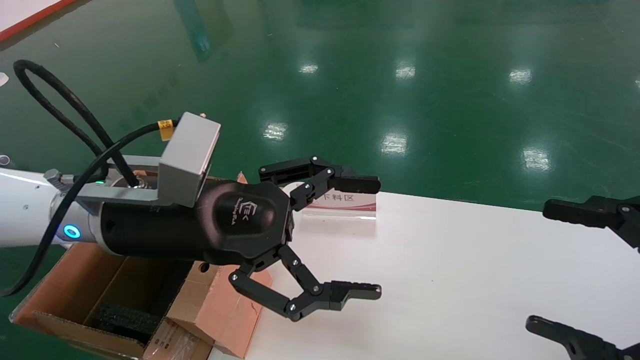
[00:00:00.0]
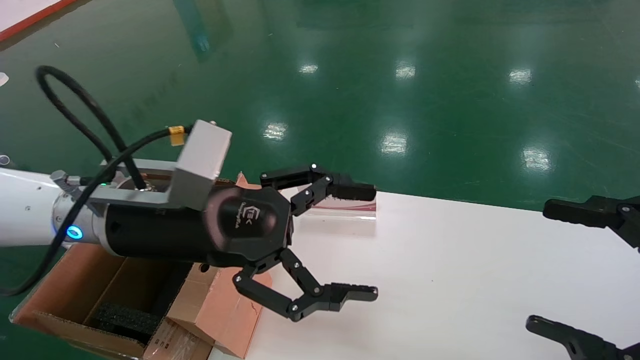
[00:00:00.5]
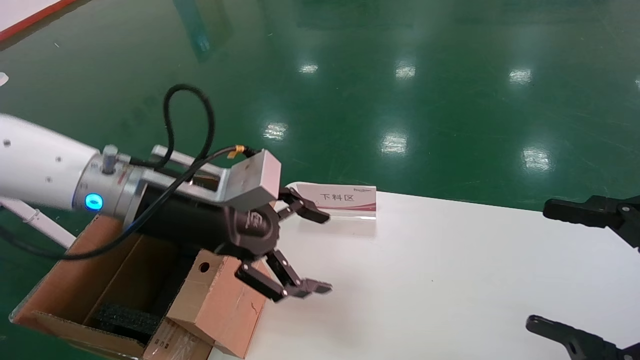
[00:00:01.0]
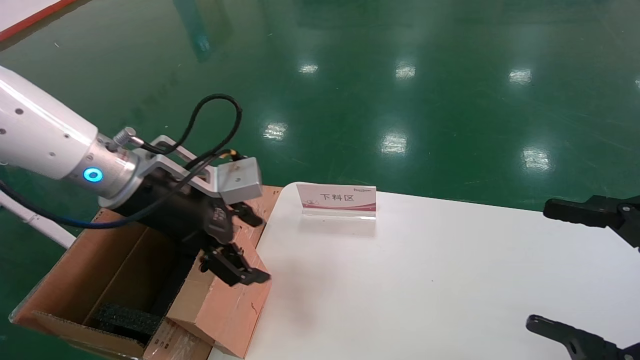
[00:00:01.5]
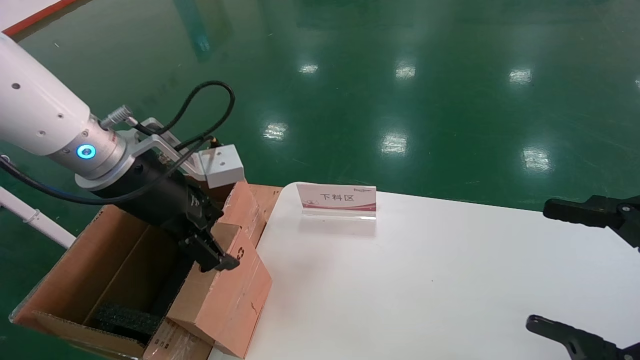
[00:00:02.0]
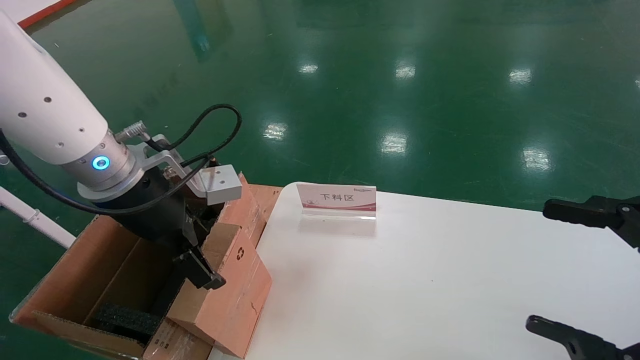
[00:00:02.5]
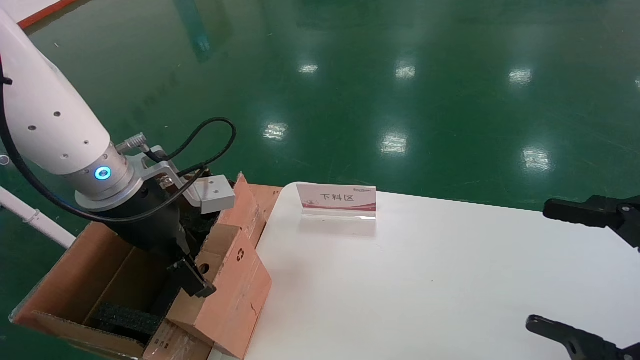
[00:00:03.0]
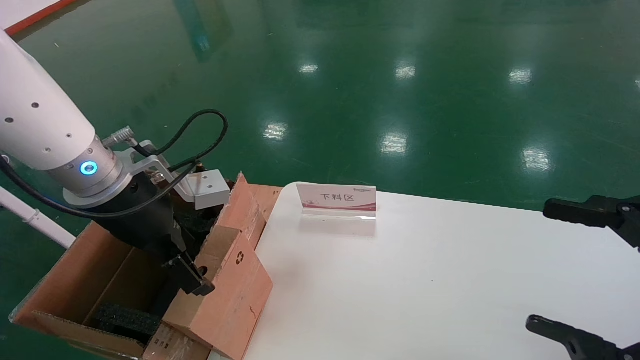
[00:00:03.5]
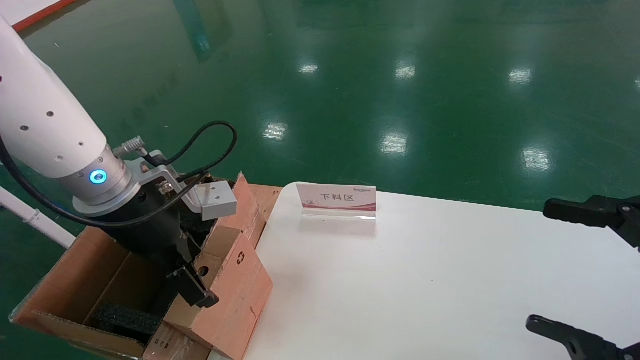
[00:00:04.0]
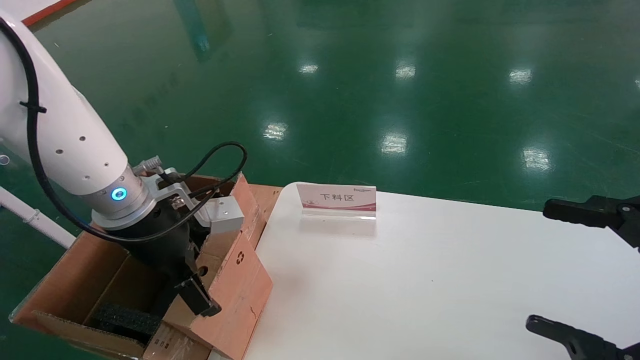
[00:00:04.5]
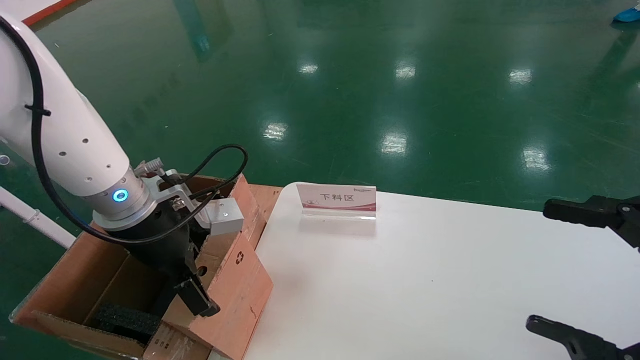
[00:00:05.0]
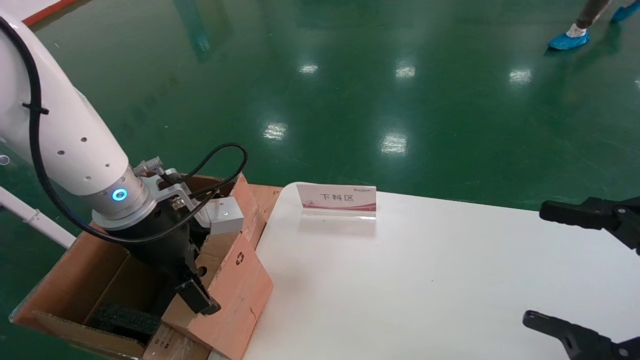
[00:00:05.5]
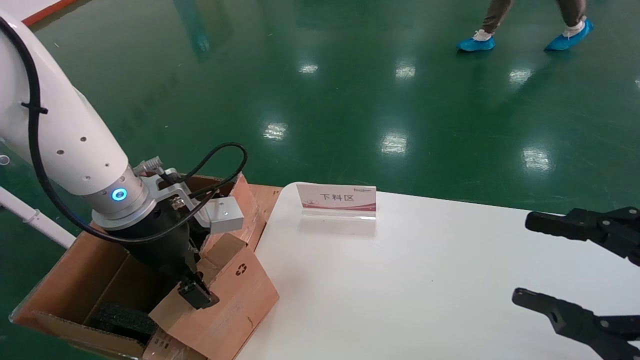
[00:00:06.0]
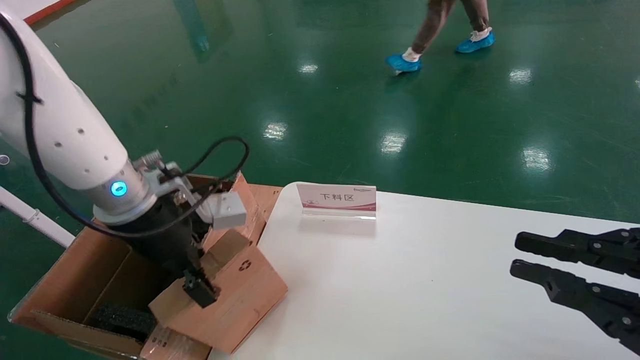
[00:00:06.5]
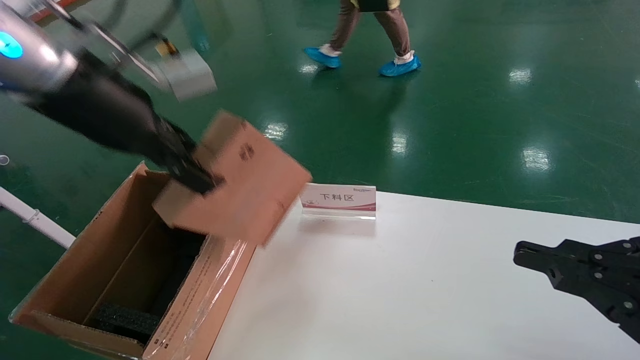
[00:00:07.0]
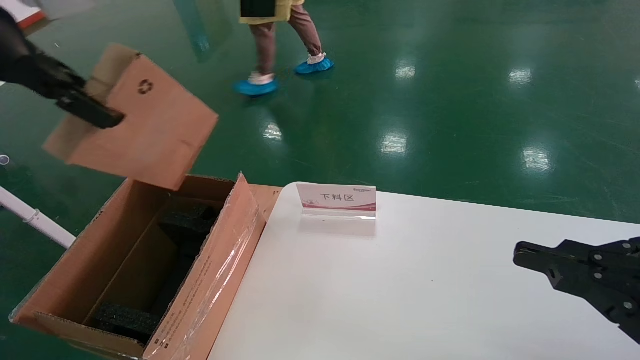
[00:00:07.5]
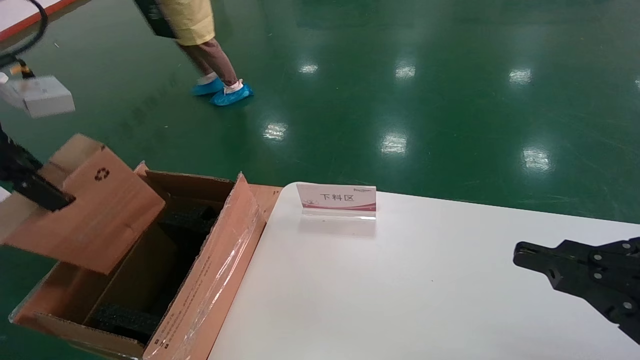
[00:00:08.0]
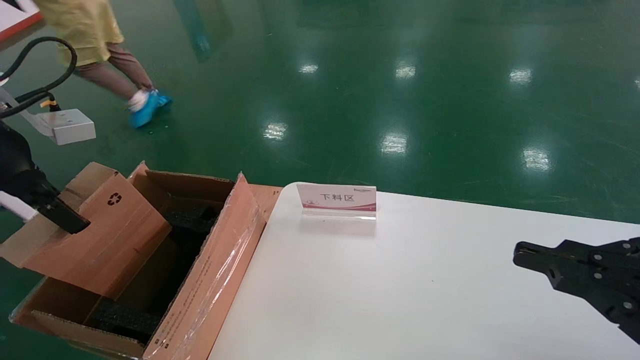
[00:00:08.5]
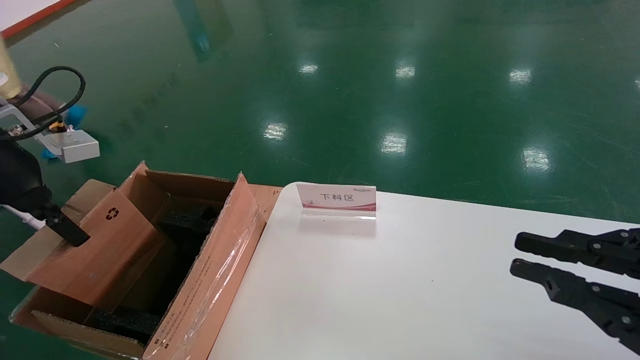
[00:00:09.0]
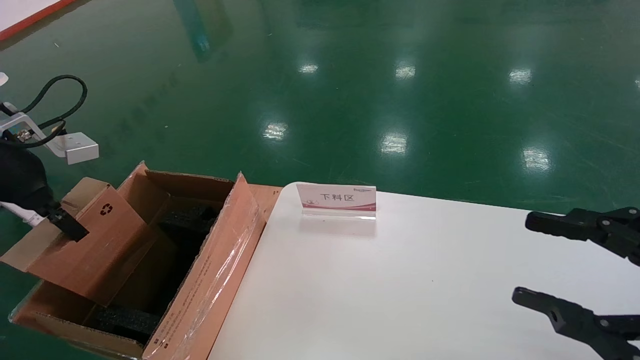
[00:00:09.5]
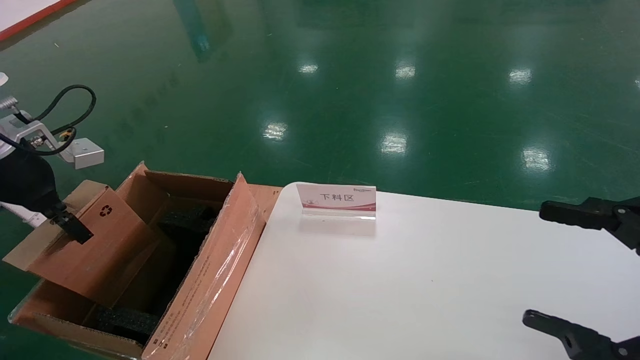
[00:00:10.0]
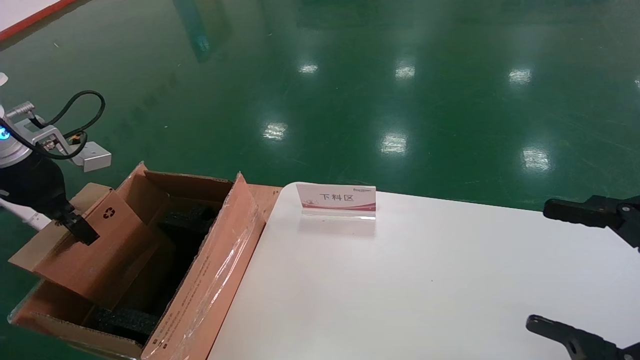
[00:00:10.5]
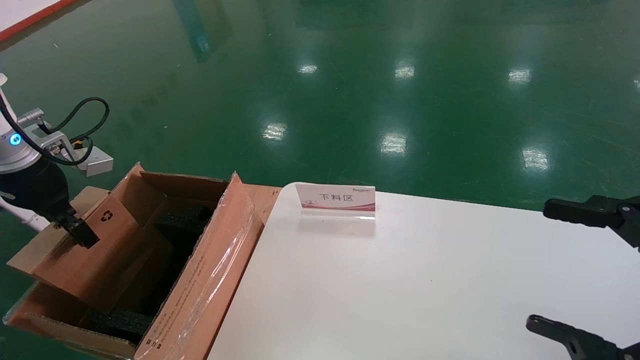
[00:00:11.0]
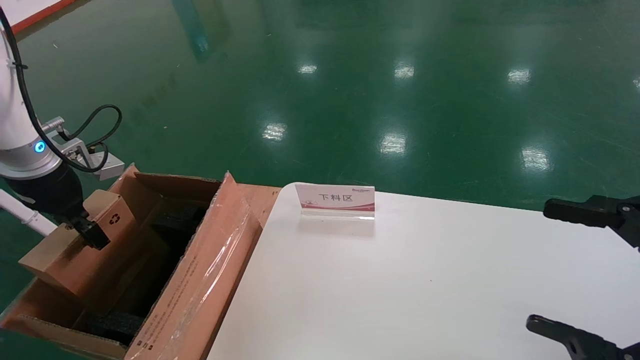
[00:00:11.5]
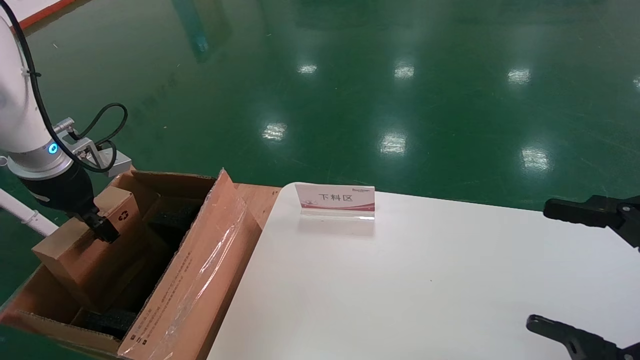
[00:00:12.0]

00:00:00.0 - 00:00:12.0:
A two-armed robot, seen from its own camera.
Task of the whole recording: pick up the small cardboard box and load it into the large cardboard box.
Step, 00:00:01.0 - 00:00:05.5: Pick up the mouse and power cord box.
00:00:00.0 - 00:00:02.0: The left gripper heads to the left, covering roughly 5 cm.
00:00:02.0 - 00:00:04.0: The grippers make only small movements.
00:00:04.0 - 00:00:06.0: The left gripper closes.
00:00:06.0 - 00:00:08.0: The left gripper shifts roughly 25 cm to the left, upward and backward, and closes up, while the right gripper closes up.
00:00:08.0 - 00:00:10.0: The left gripper heads downward, forward and to the left, covering approximately 15 cm. The right gripper opens up.
00:00:10.0 - 00:00:12.0: The left gripper is displaced forward by roughly 5 cm.

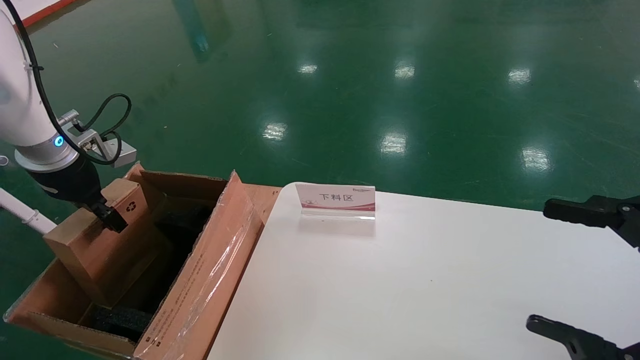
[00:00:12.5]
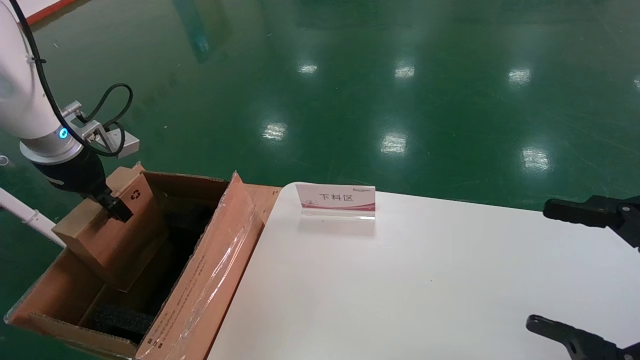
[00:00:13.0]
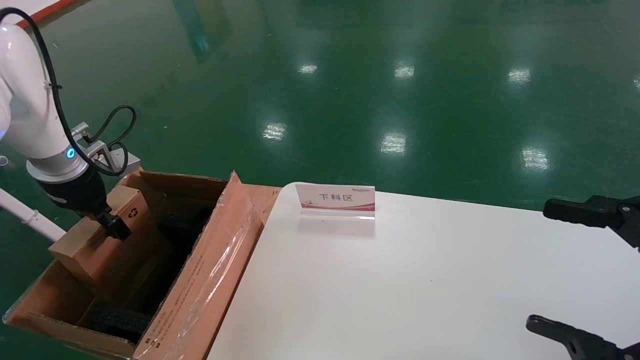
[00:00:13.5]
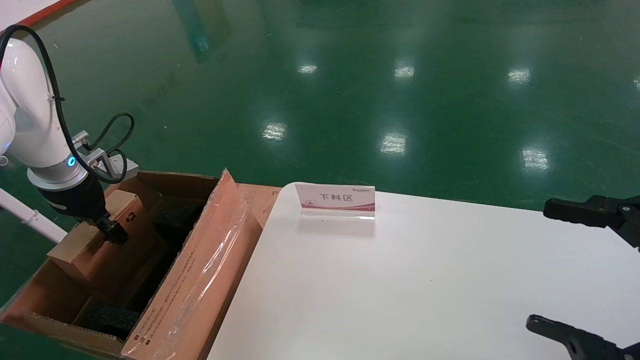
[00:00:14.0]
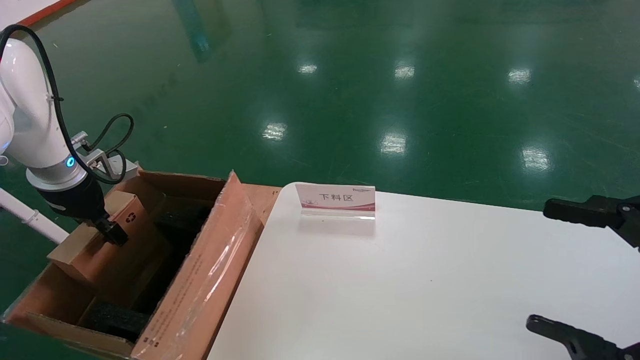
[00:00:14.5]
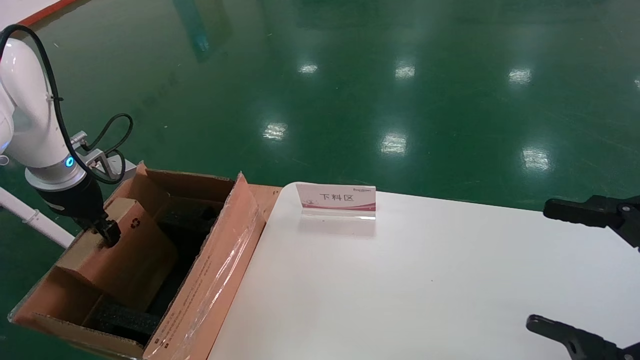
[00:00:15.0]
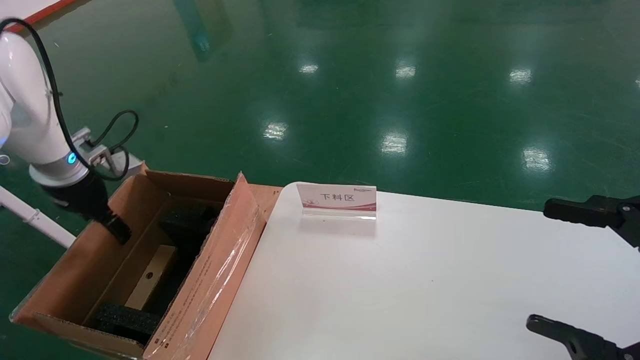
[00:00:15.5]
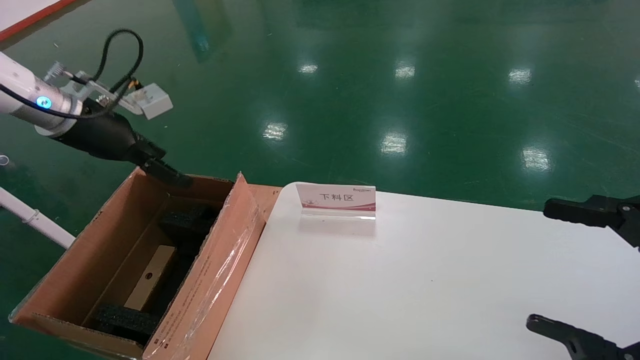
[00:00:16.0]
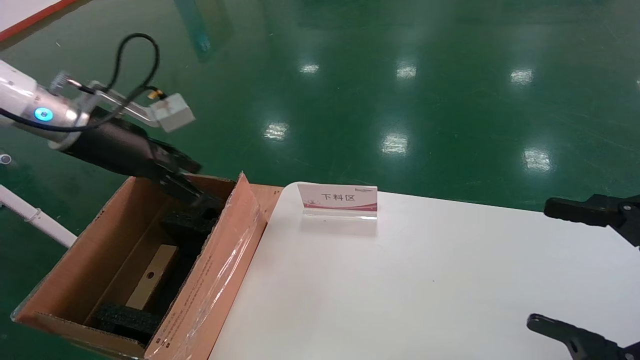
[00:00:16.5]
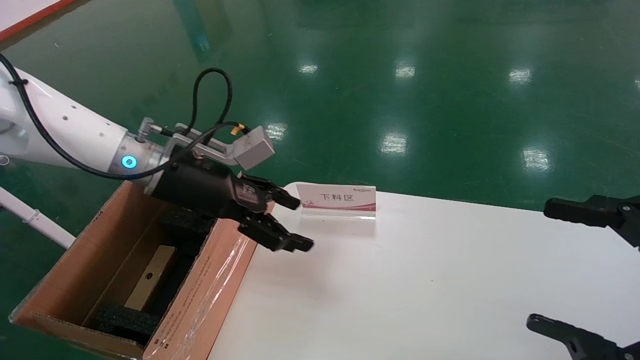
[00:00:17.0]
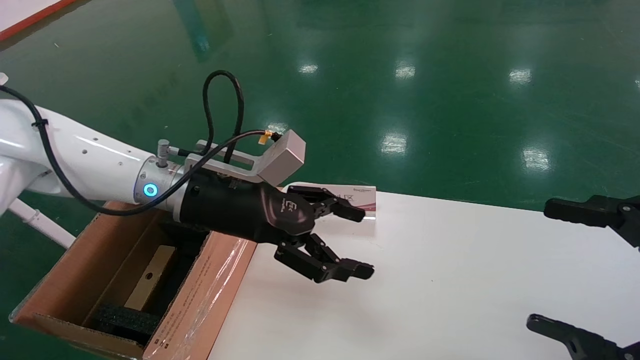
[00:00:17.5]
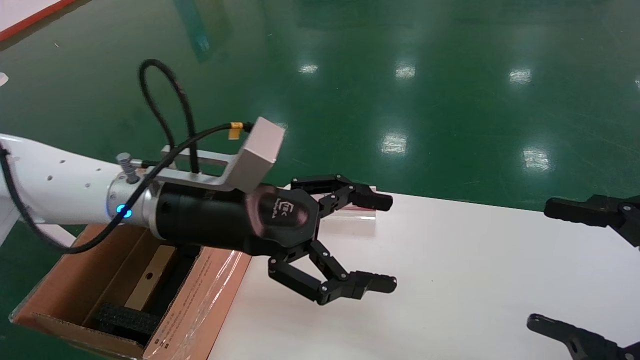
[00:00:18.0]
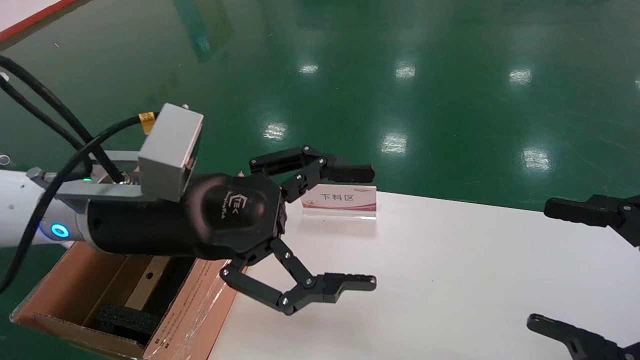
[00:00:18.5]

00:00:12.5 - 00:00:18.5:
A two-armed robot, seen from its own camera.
Task of the whole recording: pick up the small cardboard box and load it into the large cardboard box.
Step, 00:00:12.5 - 00:00:14.5: Place the mouse and power cord box into the case.
00:00:12.5 - 00:00:14.5: The grippers move only a little.
00:00:14.5 - 00:00:16.5: The left gripper heads to the right and upward, covering about 15 cm, and opens up.
00:00:16.5 - 00:00:18.5: The left gripper shifts roughly 20 cm to the right and backward.
